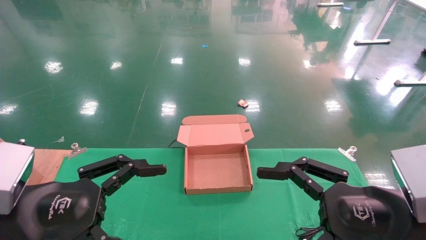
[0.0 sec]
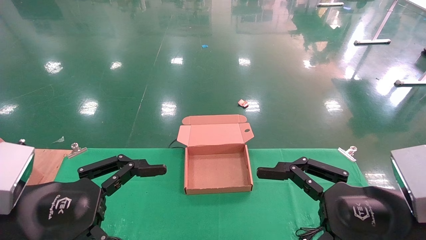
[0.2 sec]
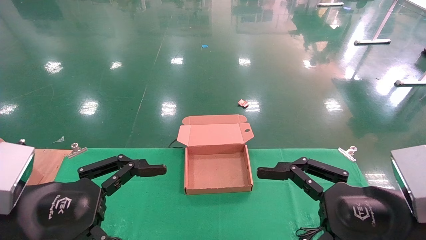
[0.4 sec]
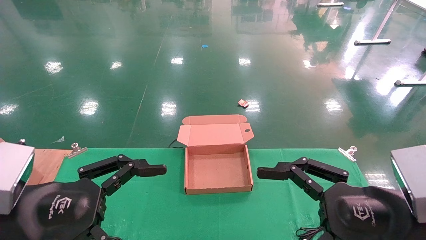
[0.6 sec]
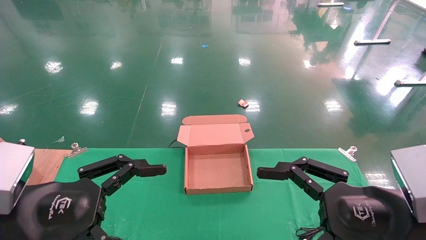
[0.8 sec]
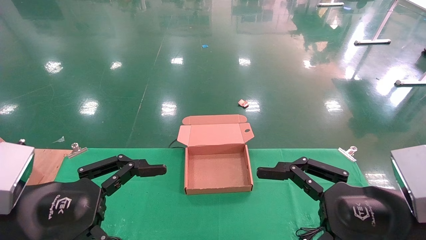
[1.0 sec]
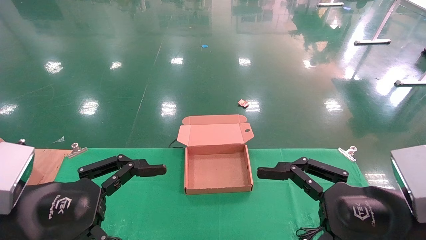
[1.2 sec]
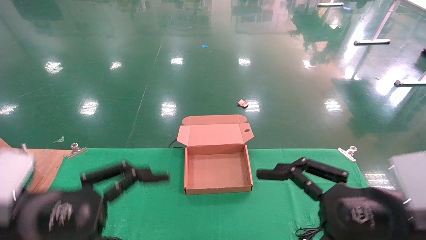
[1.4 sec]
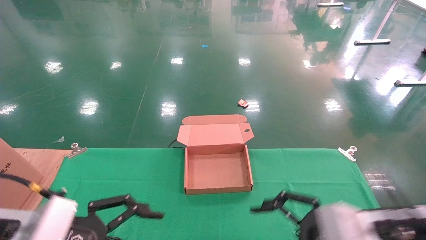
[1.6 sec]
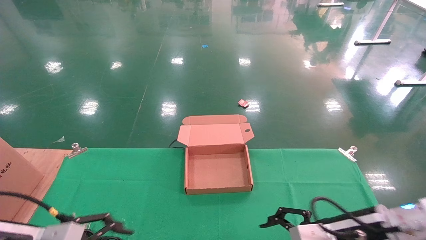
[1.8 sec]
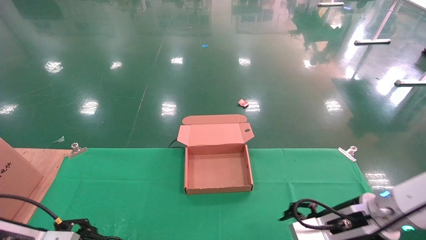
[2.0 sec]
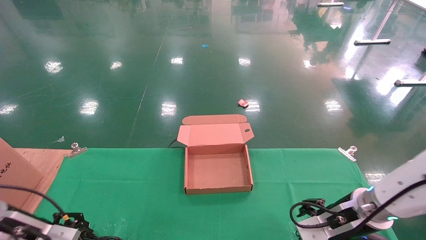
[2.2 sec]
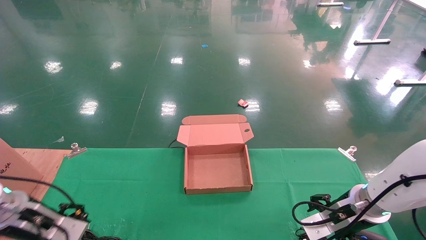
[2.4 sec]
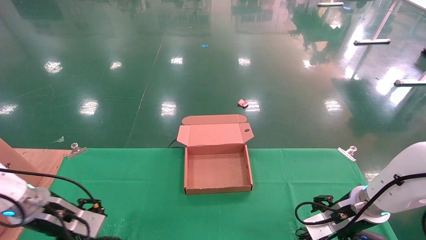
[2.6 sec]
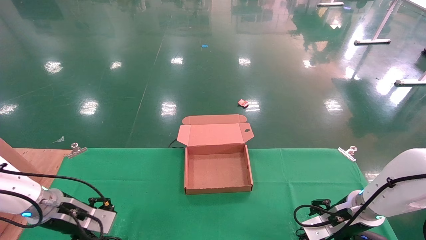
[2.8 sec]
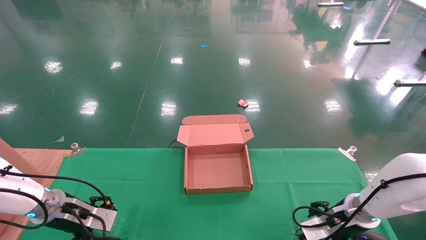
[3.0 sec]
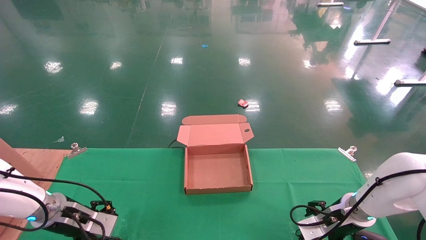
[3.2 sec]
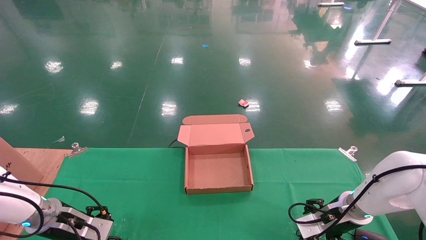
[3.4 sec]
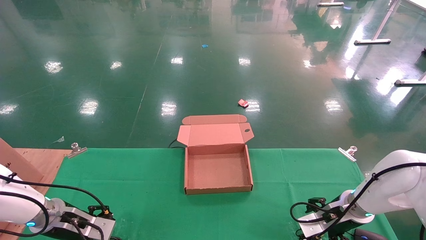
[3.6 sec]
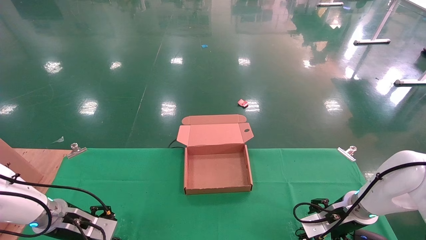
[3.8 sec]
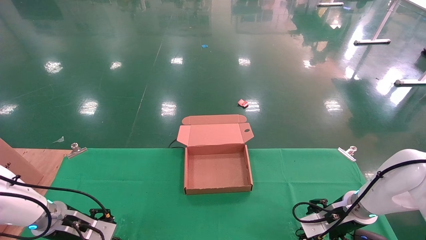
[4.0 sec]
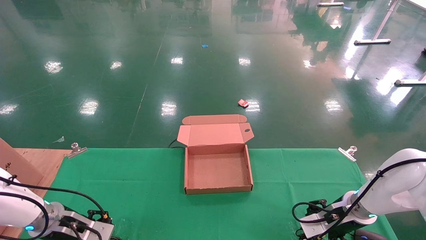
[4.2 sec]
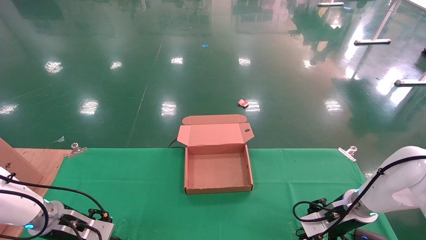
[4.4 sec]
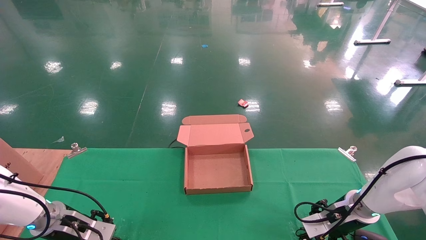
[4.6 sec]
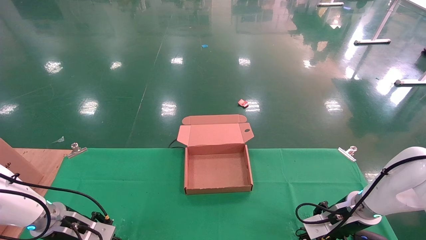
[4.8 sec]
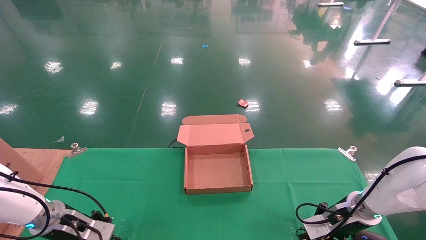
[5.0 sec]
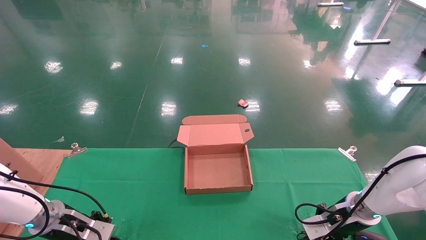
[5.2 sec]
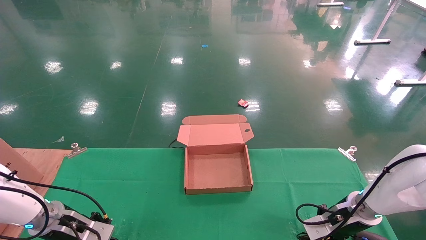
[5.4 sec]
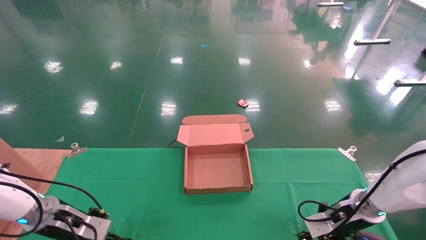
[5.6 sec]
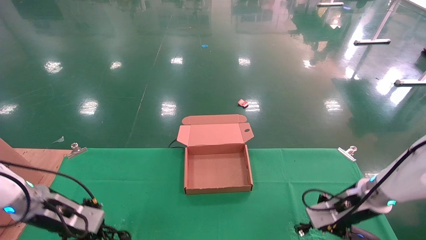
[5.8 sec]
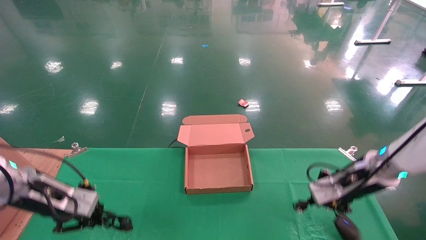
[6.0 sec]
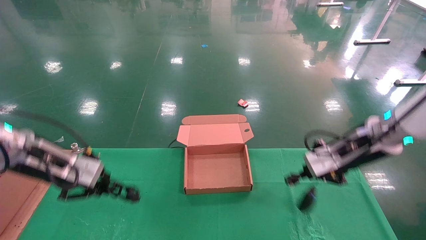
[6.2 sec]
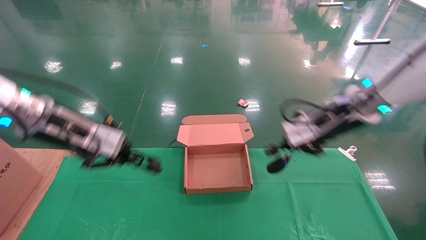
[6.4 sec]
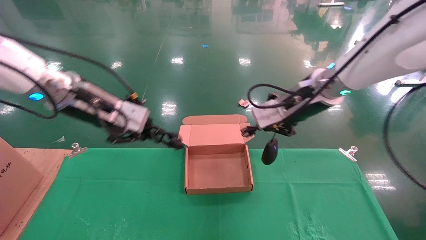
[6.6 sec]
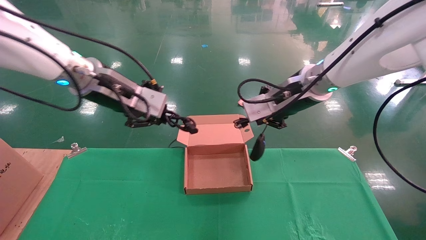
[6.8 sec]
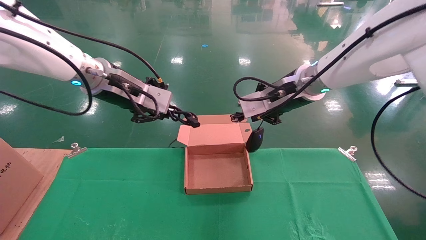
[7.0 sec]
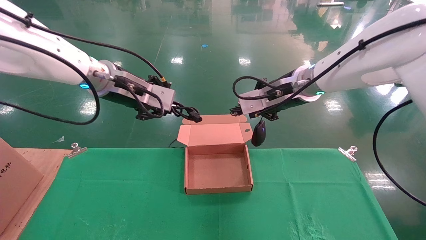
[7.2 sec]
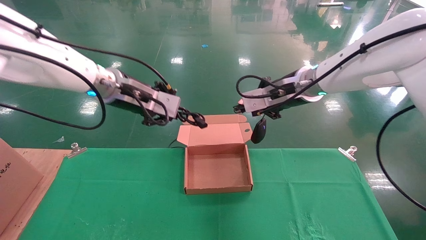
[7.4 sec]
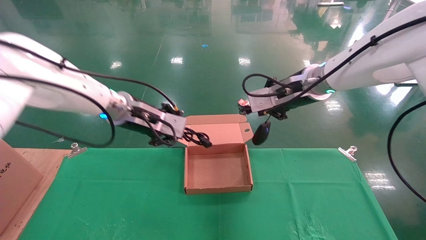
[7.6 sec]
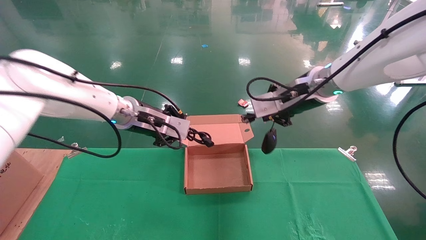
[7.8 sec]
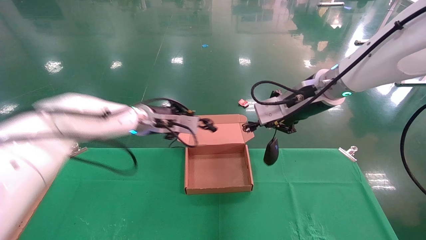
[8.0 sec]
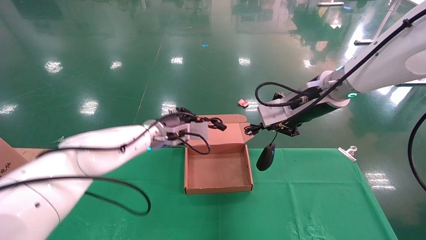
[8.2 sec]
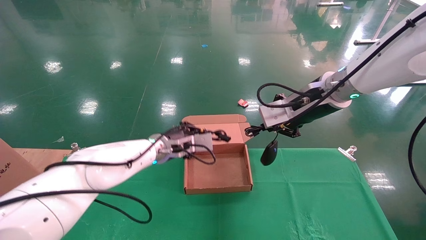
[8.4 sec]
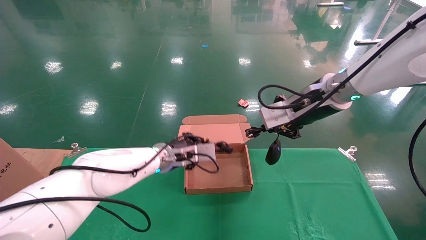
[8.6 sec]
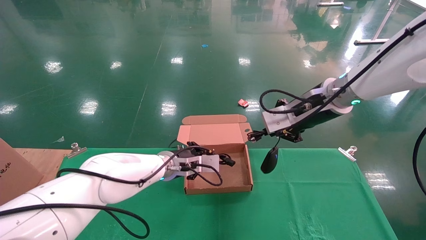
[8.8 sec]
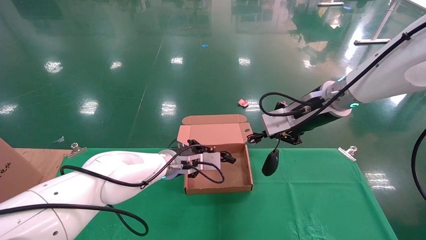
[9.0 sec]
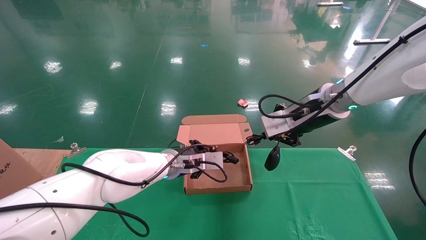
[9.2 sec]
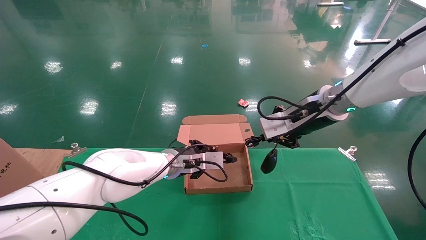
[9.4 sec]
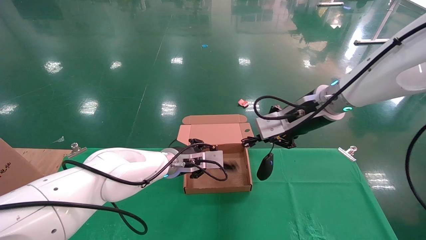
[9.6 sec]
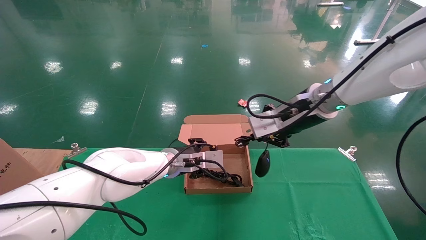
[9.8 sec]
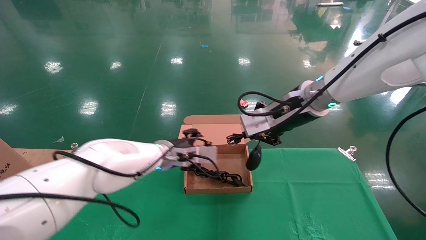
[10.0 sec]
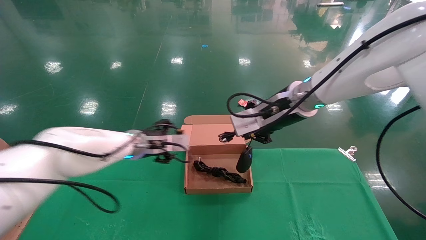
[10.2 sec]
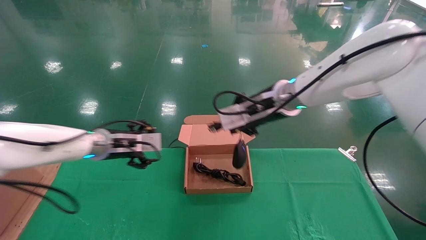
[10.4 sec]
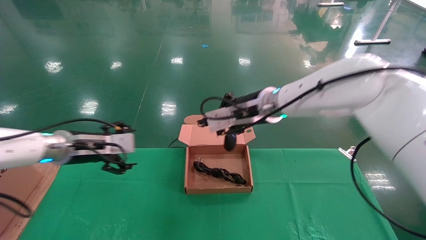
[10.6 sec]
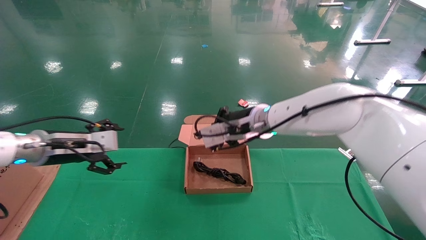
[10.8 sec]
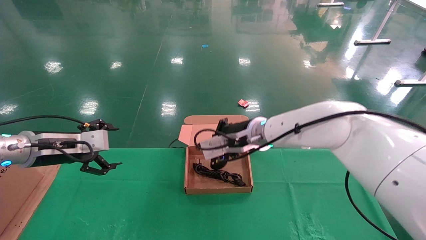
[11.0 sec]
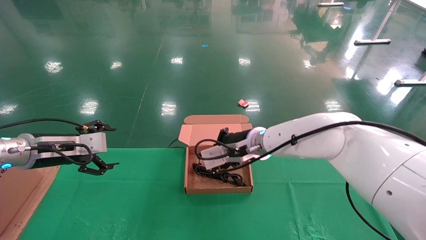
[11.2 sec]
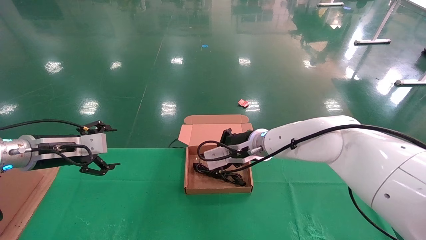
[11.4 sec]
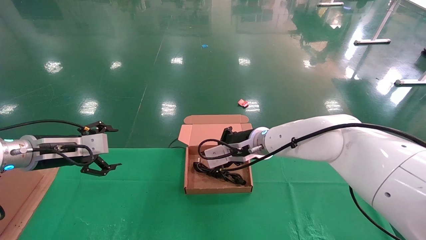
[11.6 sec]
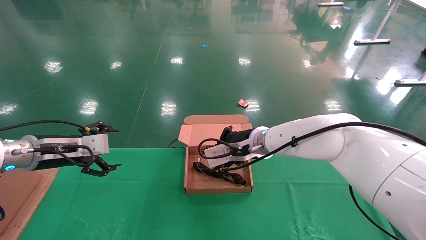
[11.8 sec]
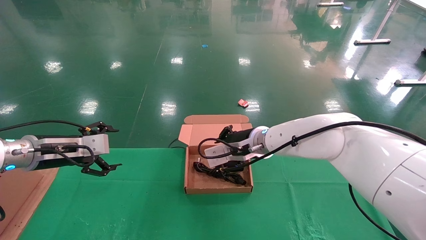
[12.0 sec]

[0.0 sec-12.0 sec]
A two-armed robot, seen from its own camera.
Step, 1.6 sec to 5.6 sec: Grab and lift both the mouse and power cord from the accessory packaging area at the same time.
Step, 5.8 sec to 11.8 sec: Place the mouse and power cord into the box.
0.0 sec to 1.6 sec: The right gripper travels forward by approximately 5 cm. The left gripper moves about 5 cm.
1.6 sec to 3.0 sec: Both grippers travel together forward and downward, approximately 20 cm.
3.0 sec to 4.4 sec: There are only small adjustments of the grippers.
4.4 sec to 6.0 sec: The grippers both shift upward by roughly 10 cm. The left gripper closes up. The right gripper closes.
6.0 sec to 7.6 sec: The left gripper travels to the right, upward and forward by approximately 25 cm. Meanwhile the right gripper shifts roughly 20 cm upward and to the left.
7.6 sec to 9.0 sec: The left gripper shifts roughly 20 cm downward and to the right.
9.0 sec to 10.4 sec: The left gripper moves to the left, about 15 cm, and opens; the right gripper travels to the left by approximately 10 cm.
10.4 sec to 12.0 sec: The right gripper moves downward, about 10 cm. The left gripper goes some 15 cm to the left and backward.

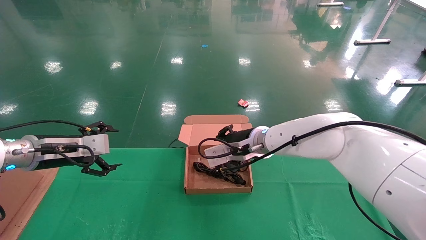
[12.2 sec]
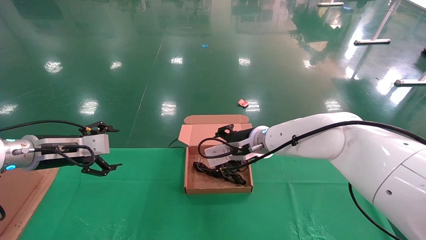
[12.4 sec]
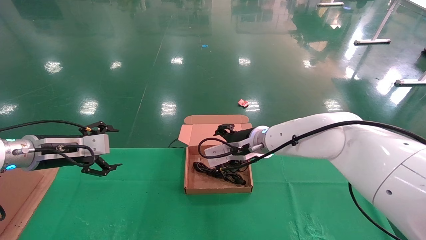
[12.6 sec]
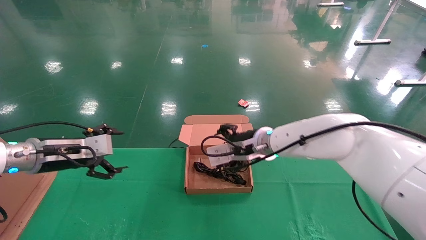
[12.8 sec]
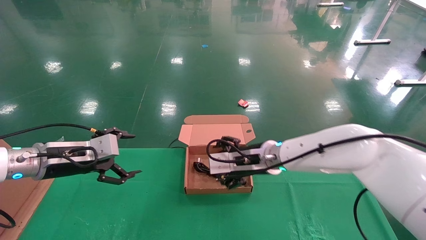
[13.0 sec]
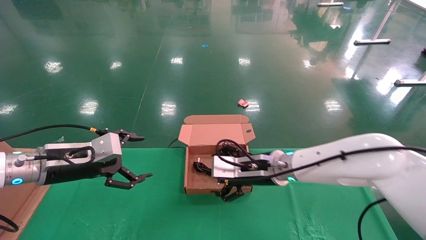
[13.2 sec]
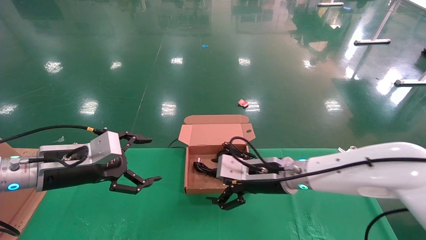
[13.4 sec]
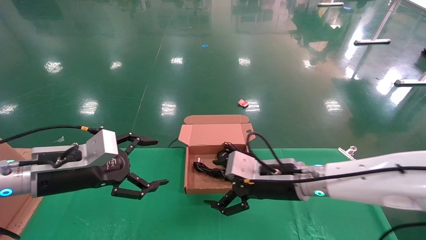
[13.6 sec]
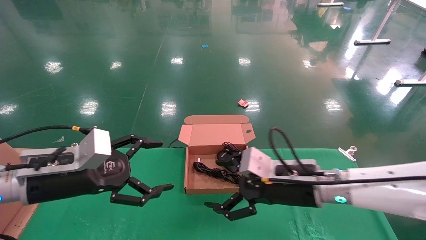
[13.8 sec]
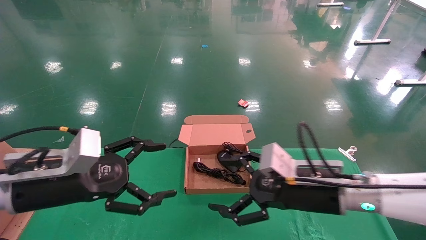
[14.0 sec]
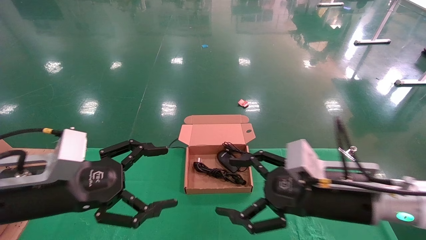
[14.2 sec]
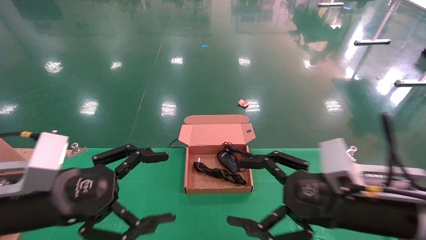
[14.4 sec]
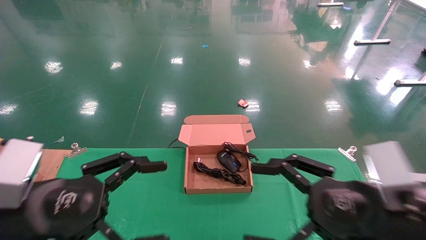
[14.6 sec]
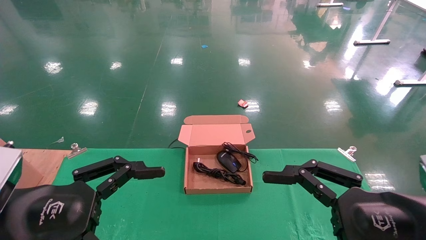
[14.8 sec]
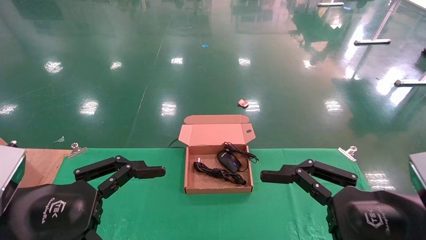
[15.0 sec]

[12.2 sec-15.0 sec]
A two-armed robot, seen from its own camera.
12.2 sec to 13.6 sec: The two grippers go roughly 10 cm backward and to the right. The right gripper opens its fingers.
13.6 sec to 15.0 sec: The right gripper shifts approximately 25 cm backward and to the right; the left gripper travels backward by some 15 cm.
